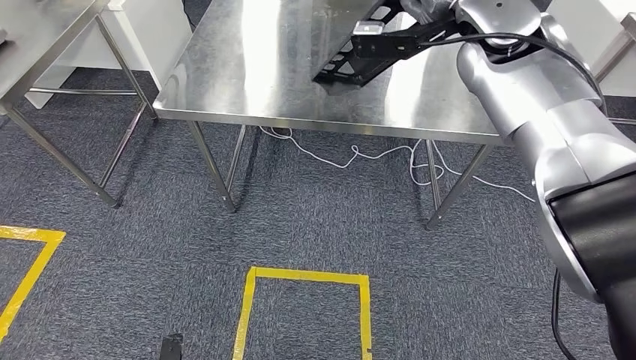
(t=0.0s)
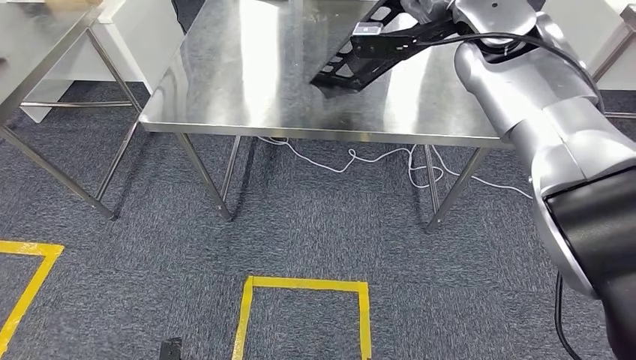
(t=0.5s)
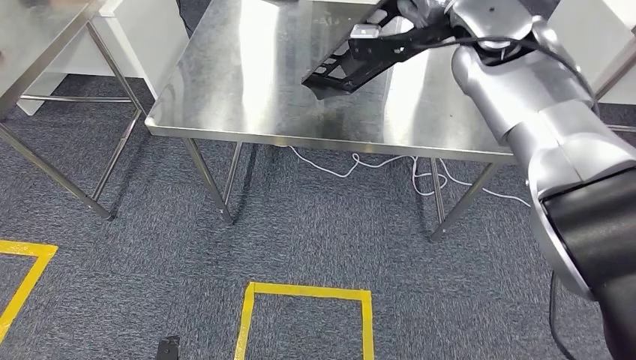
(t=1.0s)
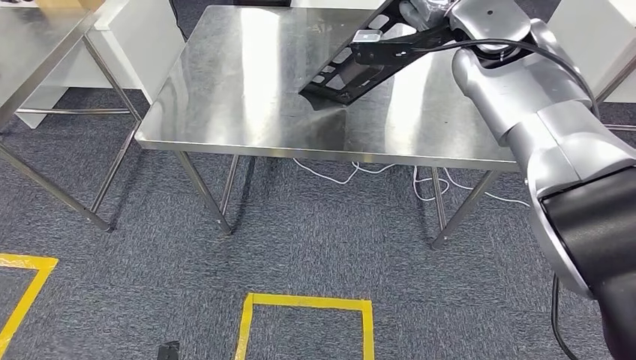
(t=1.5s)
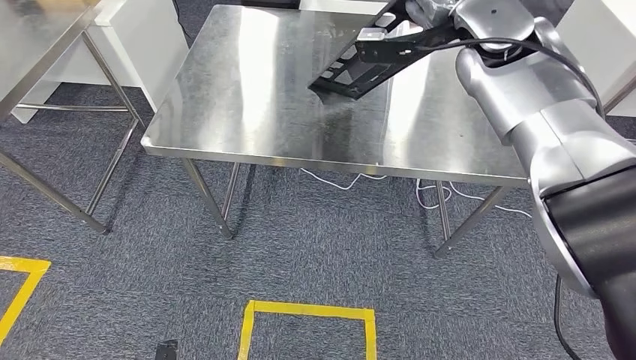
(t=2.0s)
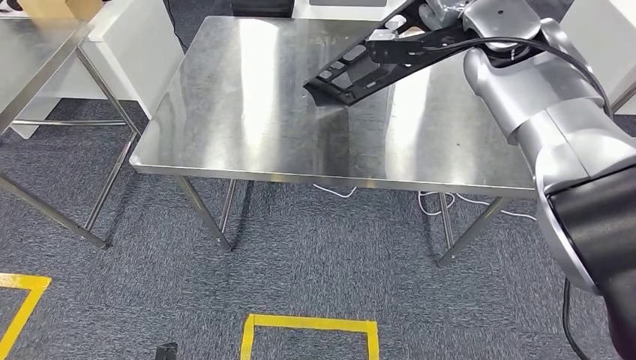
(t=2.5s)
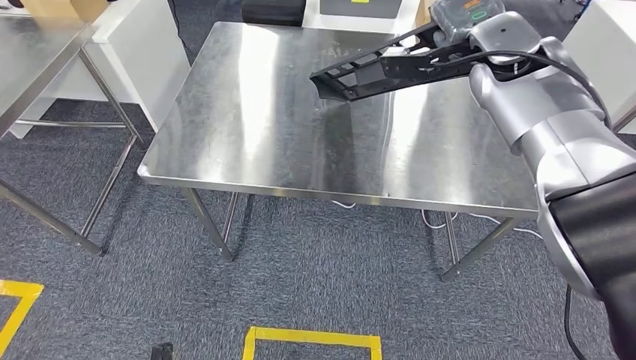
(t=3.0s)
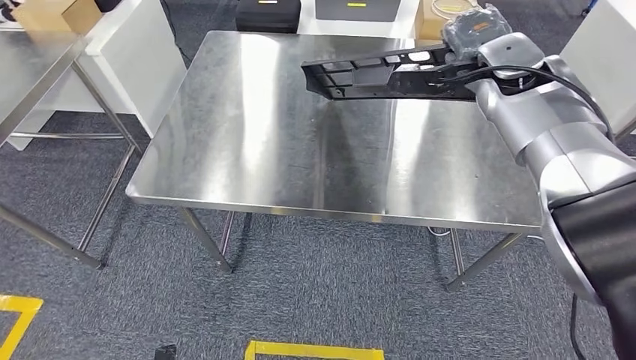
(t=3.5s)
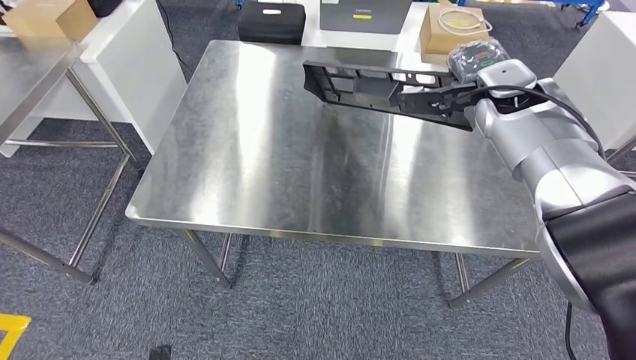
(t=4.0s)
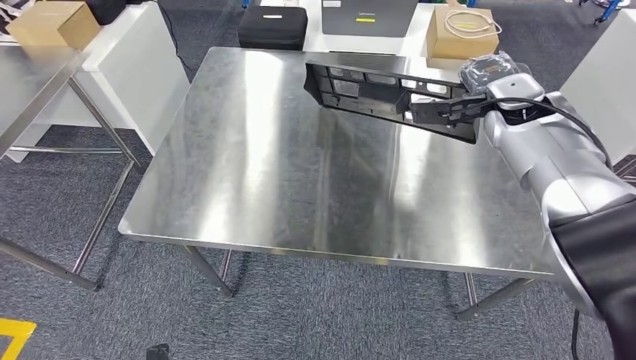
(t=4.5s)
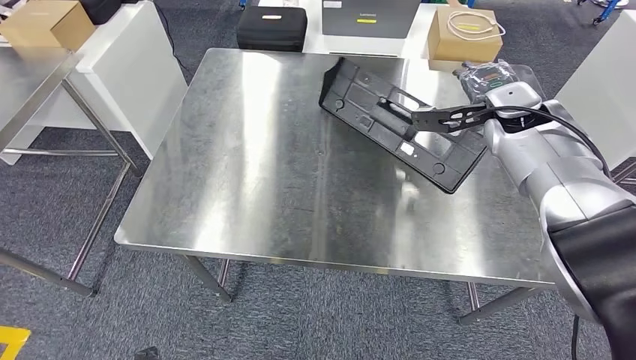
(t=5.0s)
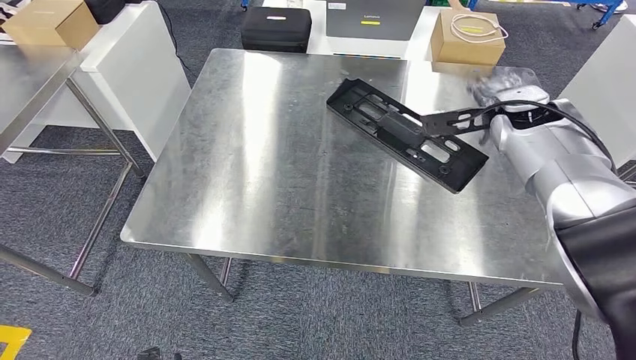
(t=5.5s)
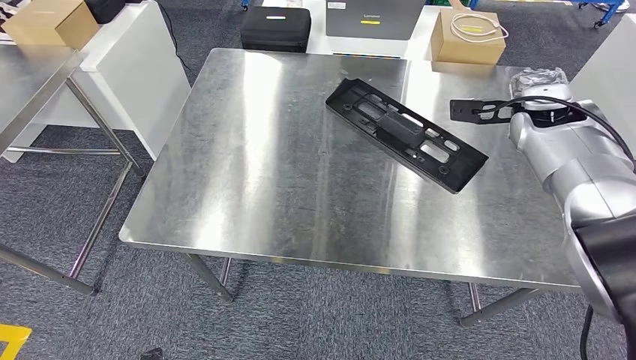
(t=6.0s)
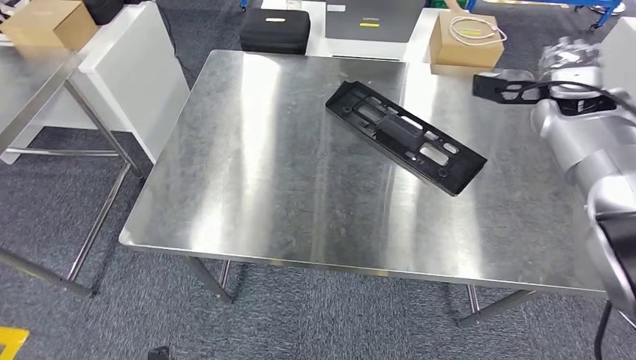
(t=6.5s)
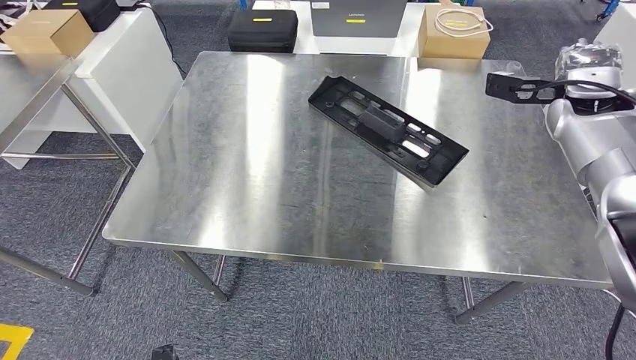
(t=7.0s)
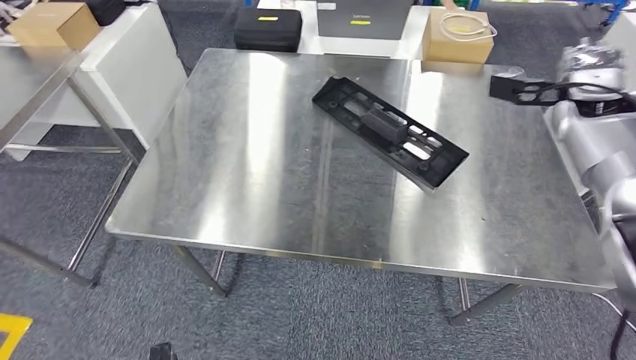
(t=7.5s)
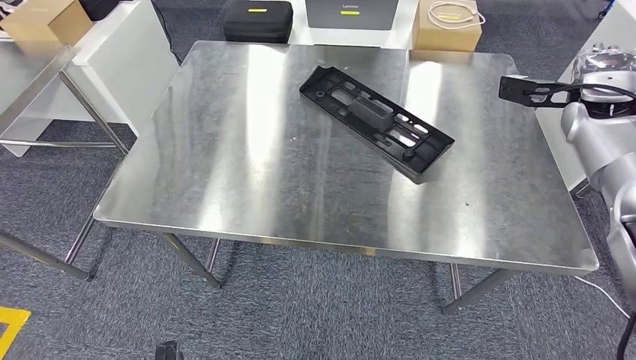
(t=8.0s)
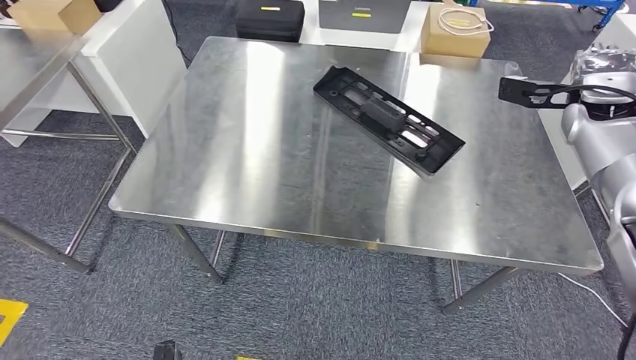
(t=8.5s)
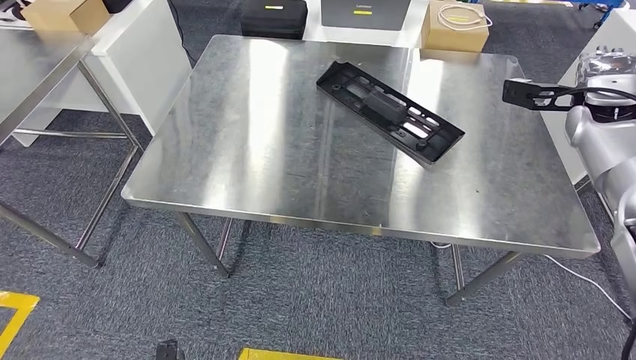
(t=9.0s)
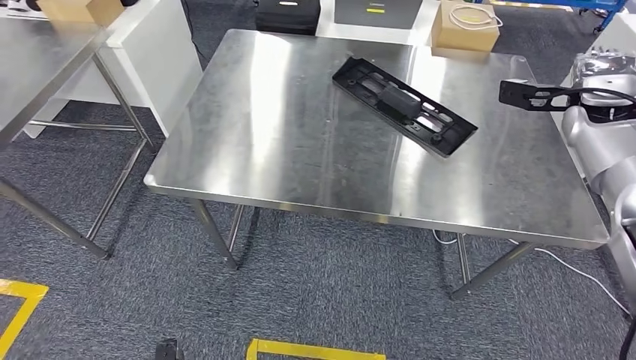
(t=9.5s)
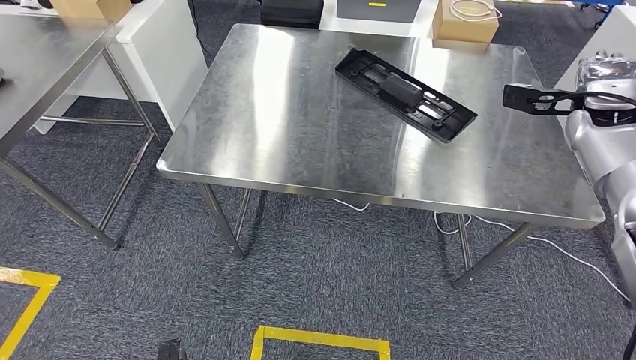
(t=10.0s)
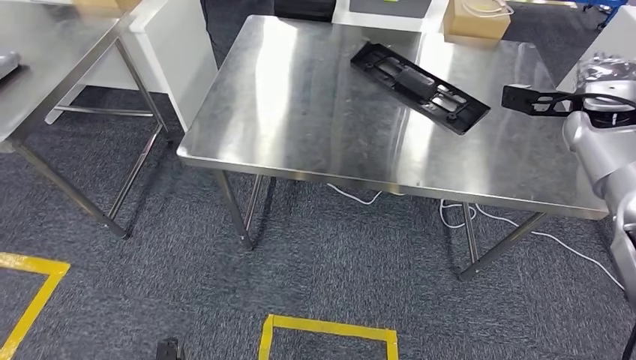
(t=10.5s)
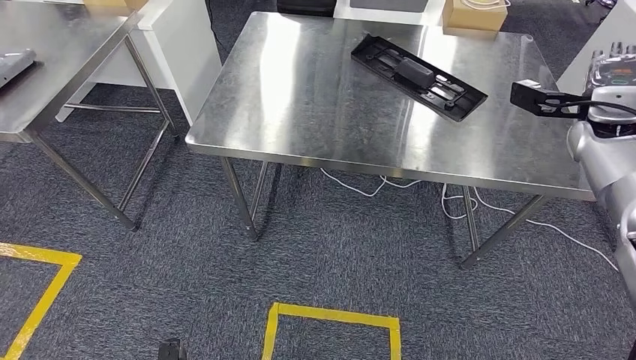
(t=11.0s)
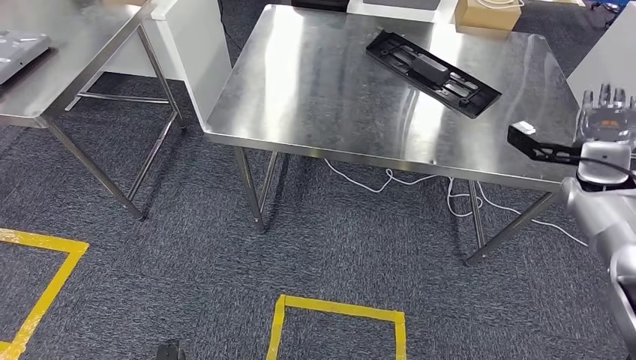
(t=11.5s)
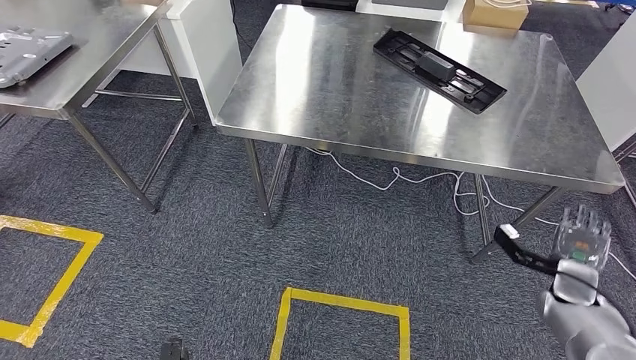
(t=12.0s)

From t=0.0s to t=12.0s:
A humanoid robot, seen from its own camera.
Step, from t=0.0s to t=9.0s: Insert the large material into the corresponding slot on the workbench.

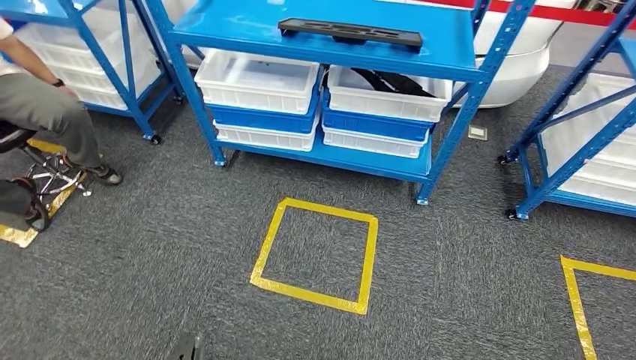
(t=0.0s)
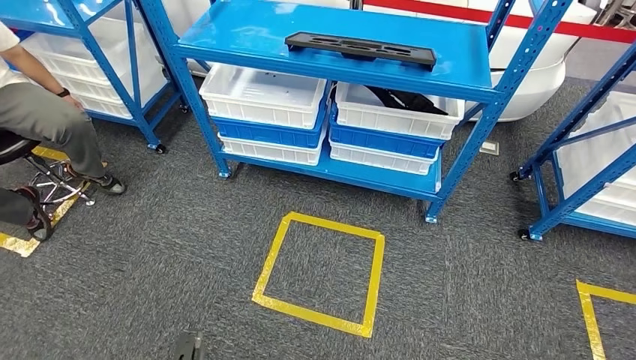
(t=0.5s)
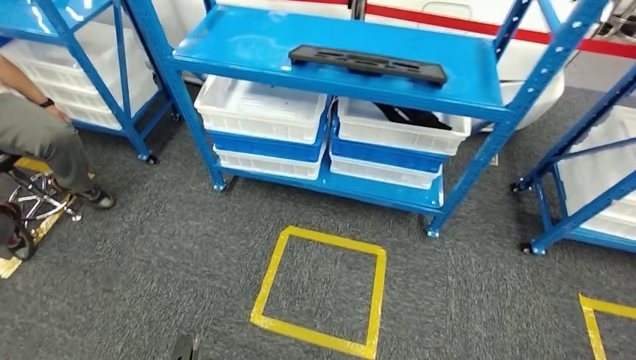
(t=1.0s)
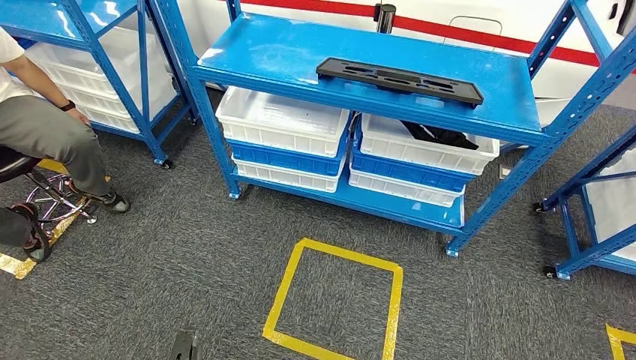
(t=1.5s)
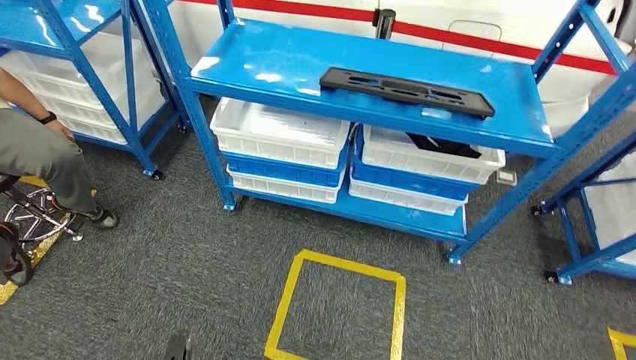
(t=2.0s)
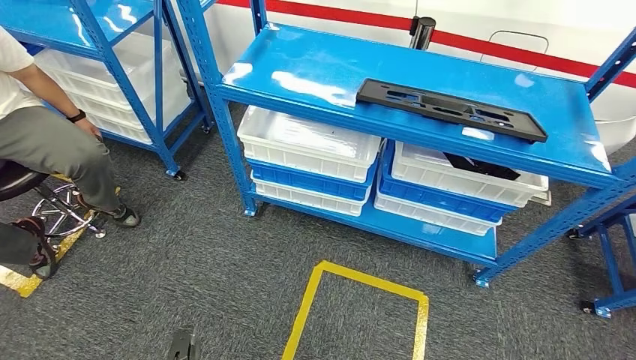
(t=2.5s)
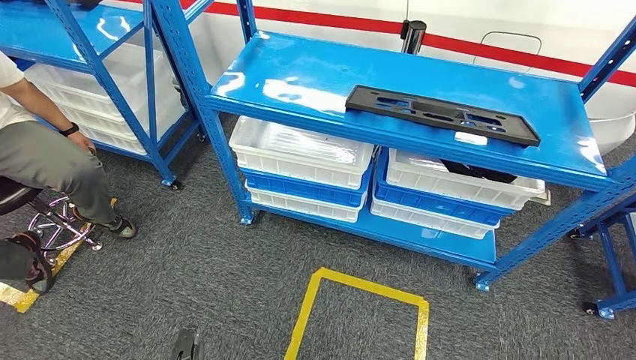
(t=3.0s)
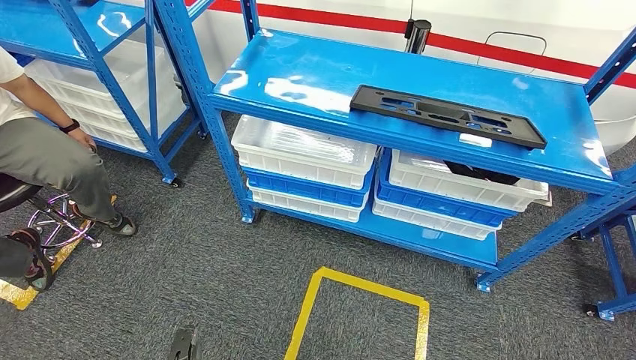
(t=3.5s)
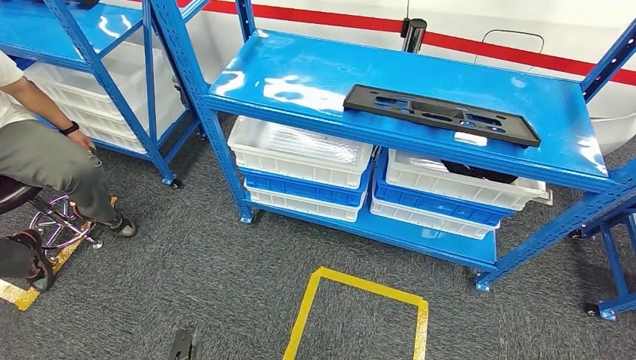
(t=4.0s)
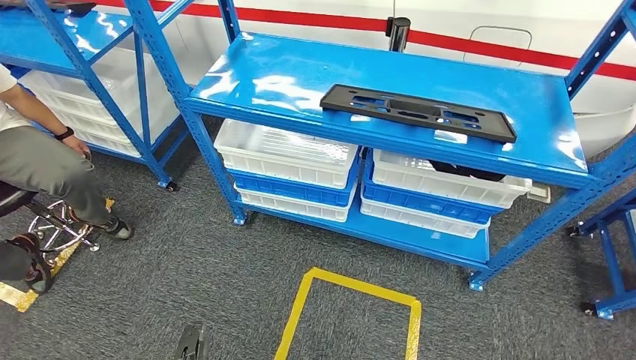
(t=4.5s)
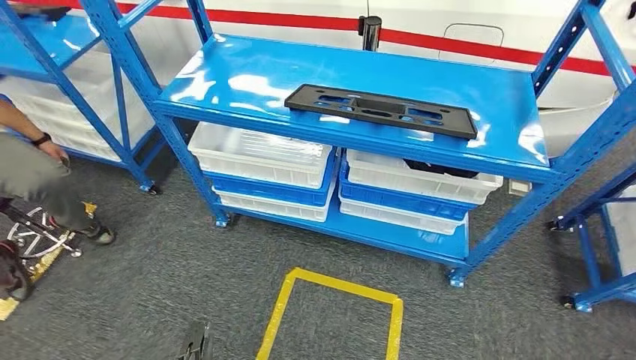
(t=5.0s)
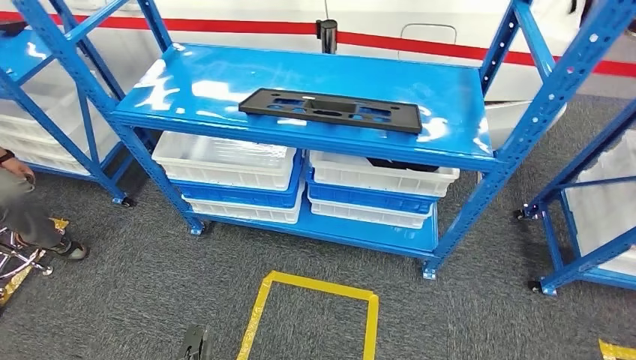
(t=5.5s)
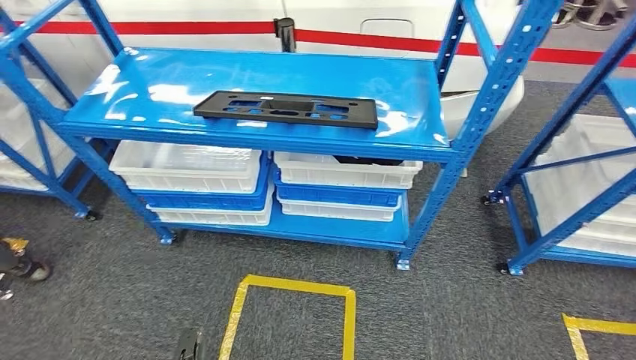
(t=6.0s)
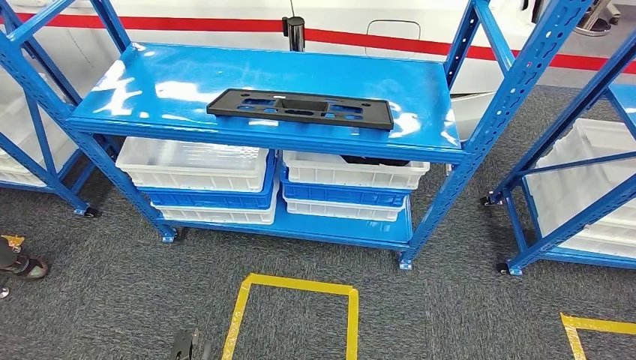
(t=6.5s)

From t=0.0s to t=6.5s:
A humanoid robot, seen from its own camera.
Step, from t=0.0s to t=6.5s: Move to the initial position of the shelf.
